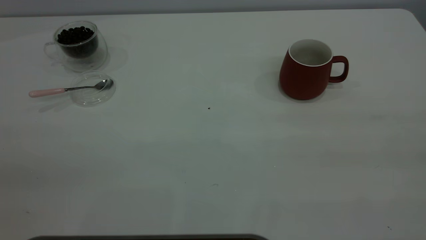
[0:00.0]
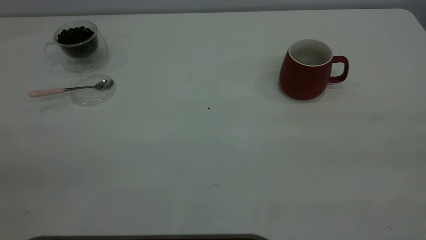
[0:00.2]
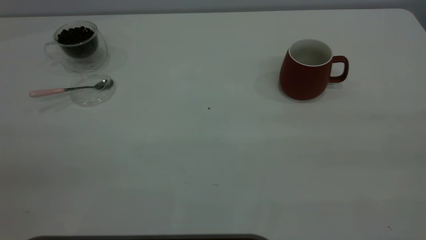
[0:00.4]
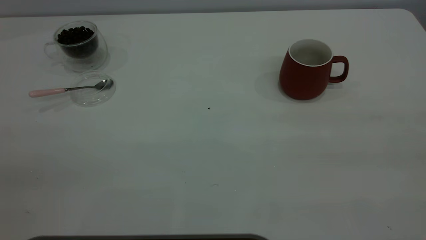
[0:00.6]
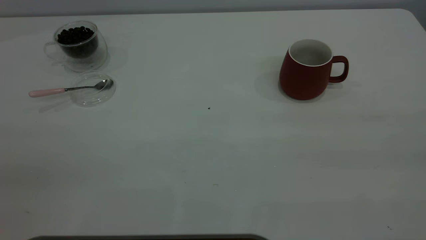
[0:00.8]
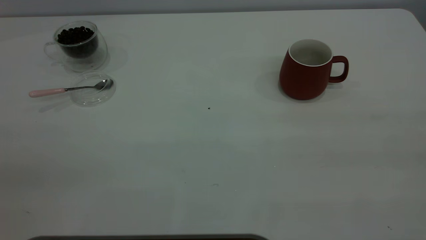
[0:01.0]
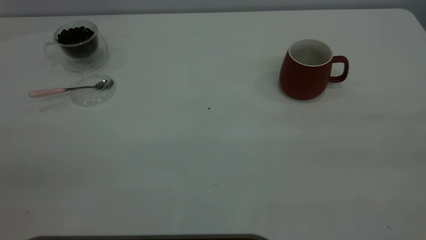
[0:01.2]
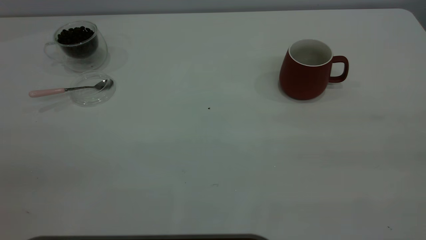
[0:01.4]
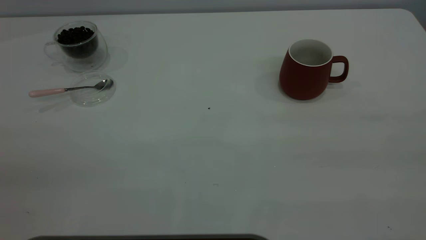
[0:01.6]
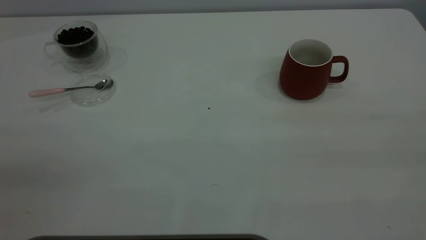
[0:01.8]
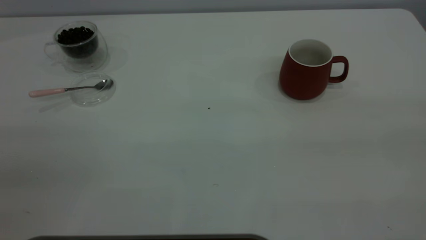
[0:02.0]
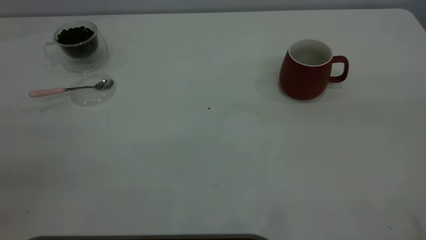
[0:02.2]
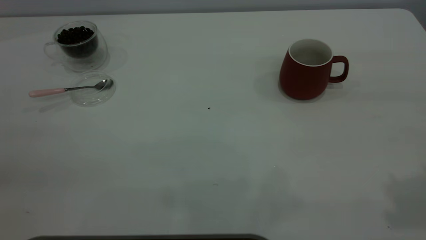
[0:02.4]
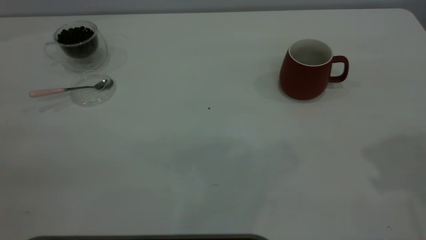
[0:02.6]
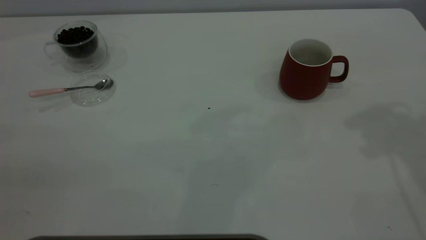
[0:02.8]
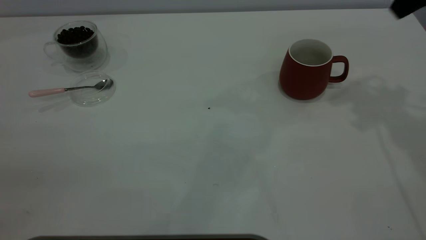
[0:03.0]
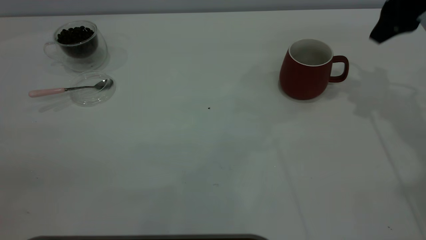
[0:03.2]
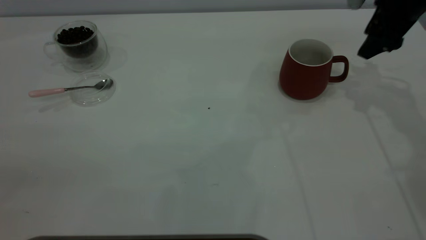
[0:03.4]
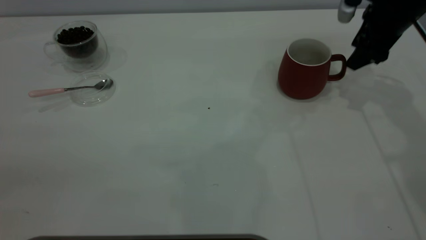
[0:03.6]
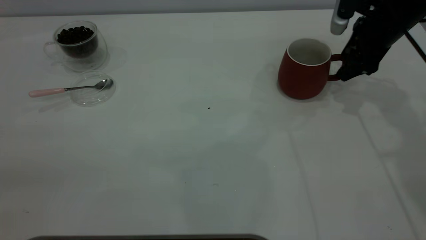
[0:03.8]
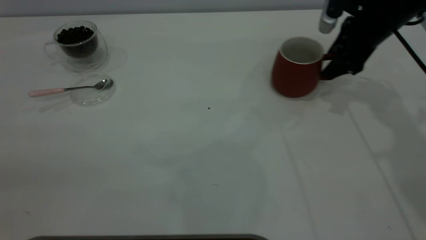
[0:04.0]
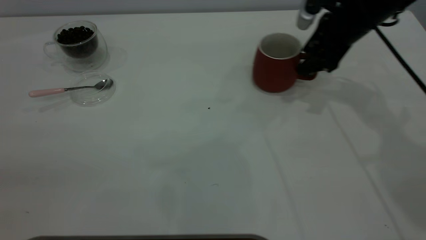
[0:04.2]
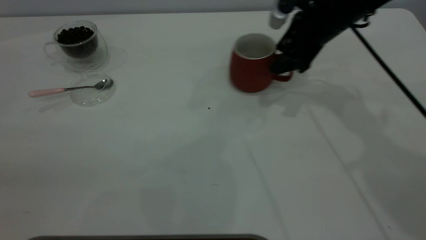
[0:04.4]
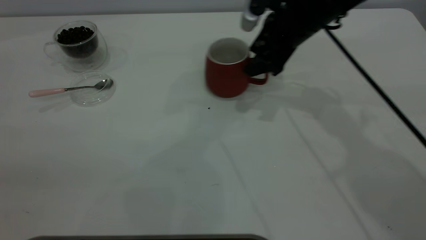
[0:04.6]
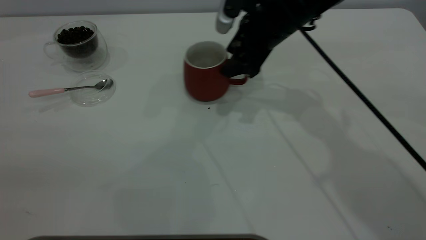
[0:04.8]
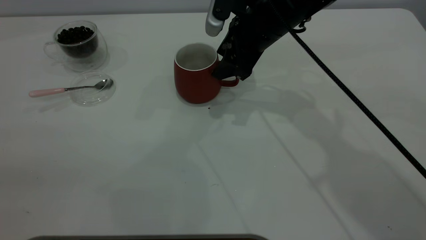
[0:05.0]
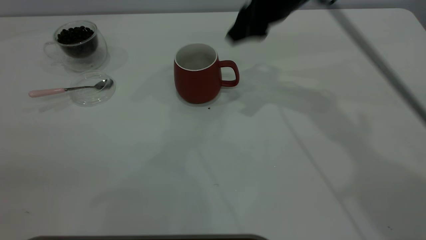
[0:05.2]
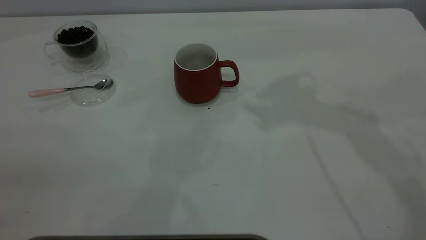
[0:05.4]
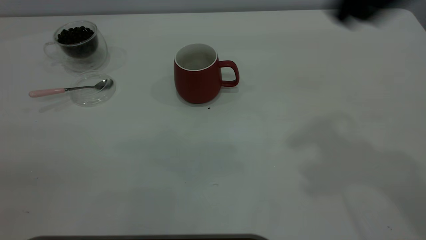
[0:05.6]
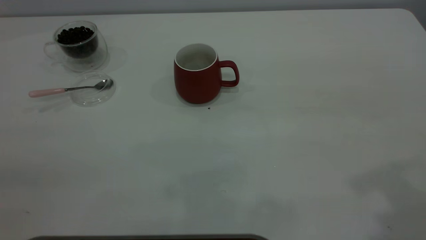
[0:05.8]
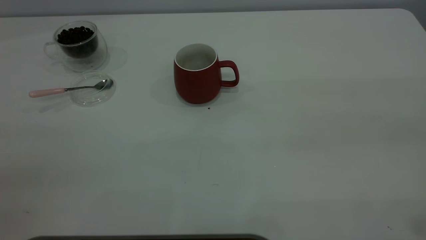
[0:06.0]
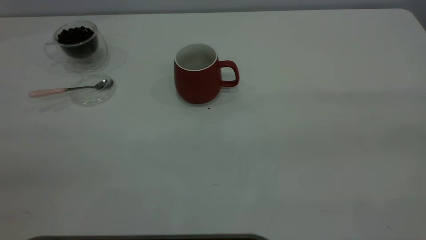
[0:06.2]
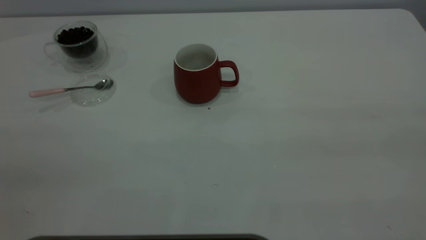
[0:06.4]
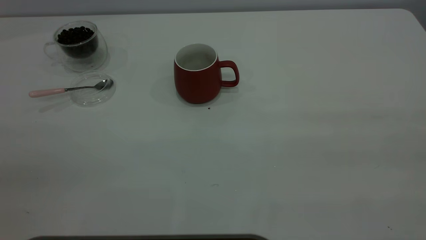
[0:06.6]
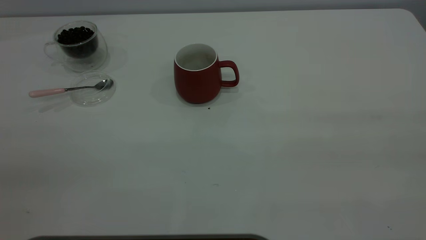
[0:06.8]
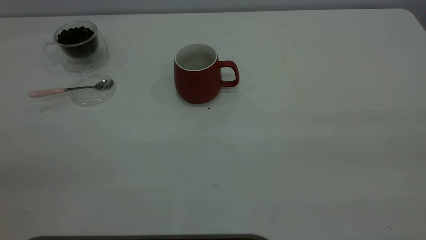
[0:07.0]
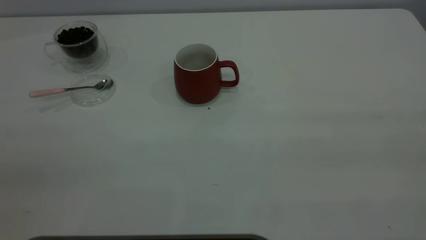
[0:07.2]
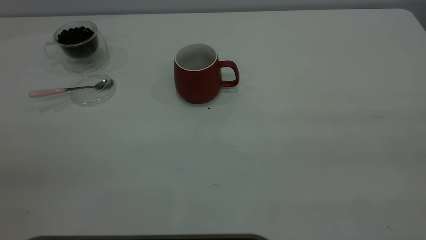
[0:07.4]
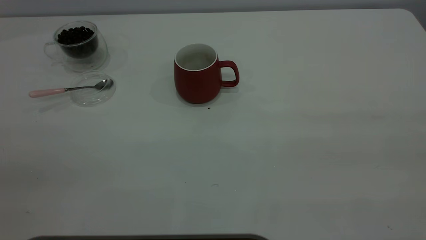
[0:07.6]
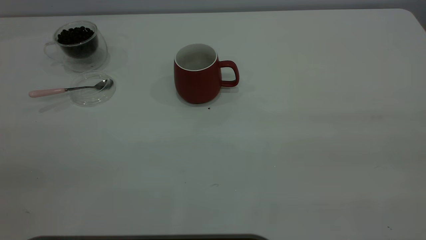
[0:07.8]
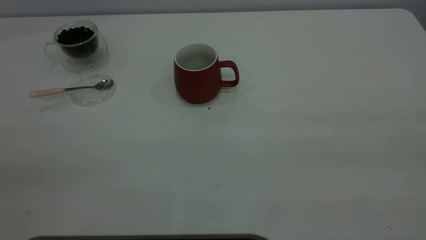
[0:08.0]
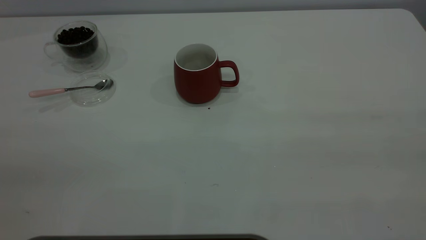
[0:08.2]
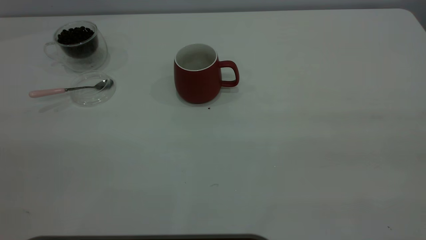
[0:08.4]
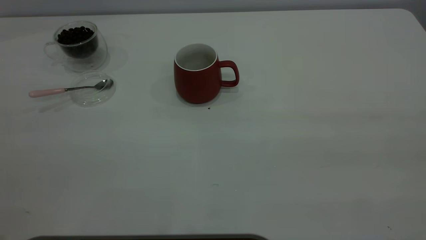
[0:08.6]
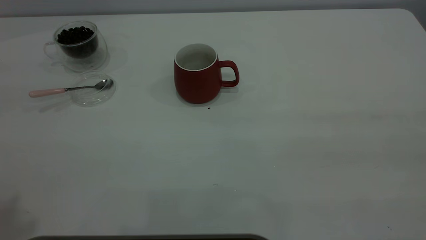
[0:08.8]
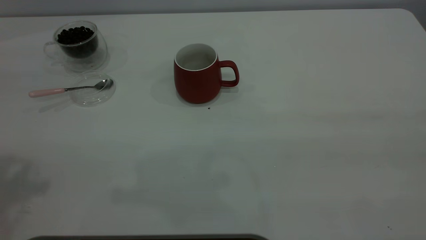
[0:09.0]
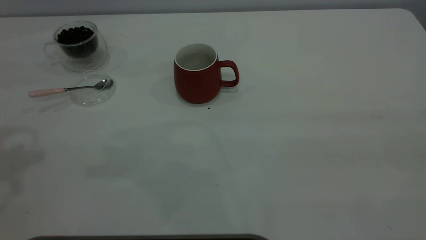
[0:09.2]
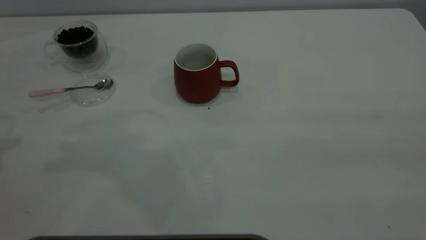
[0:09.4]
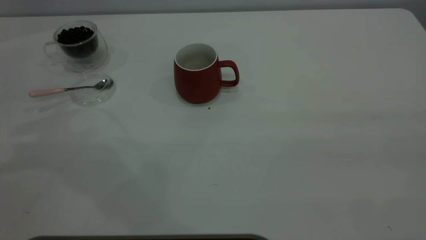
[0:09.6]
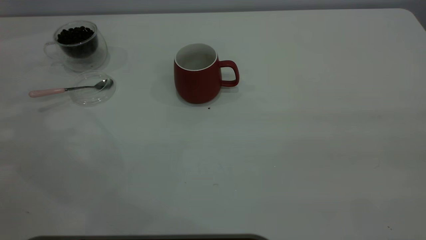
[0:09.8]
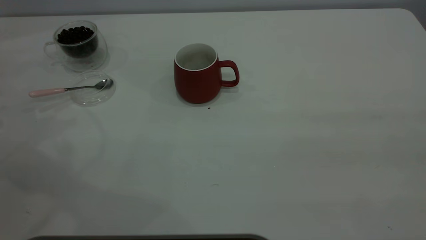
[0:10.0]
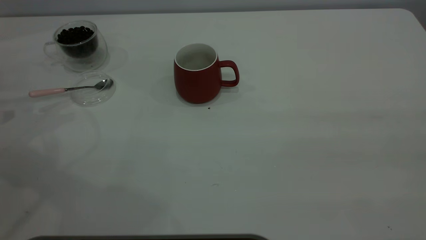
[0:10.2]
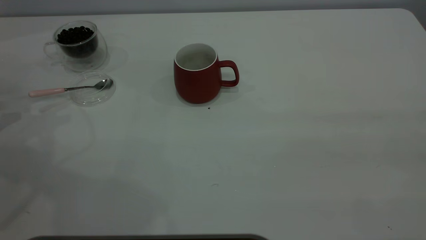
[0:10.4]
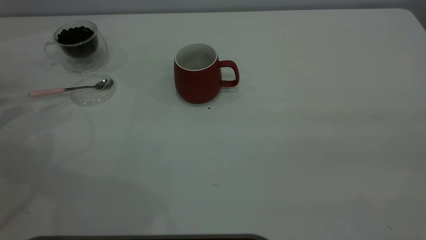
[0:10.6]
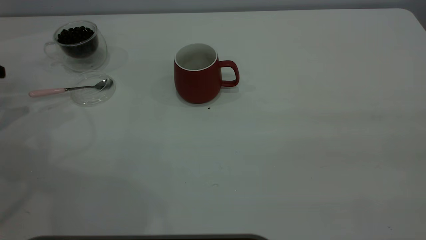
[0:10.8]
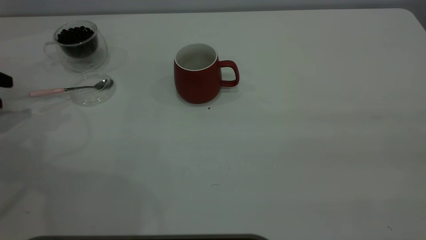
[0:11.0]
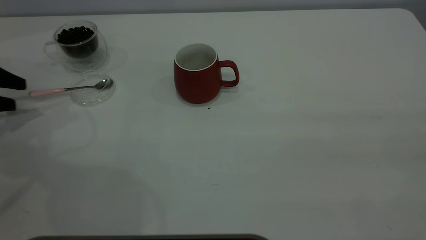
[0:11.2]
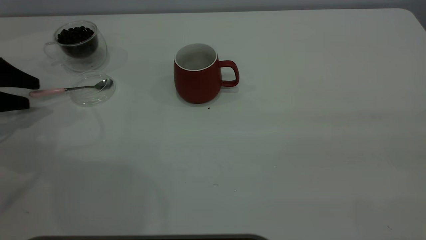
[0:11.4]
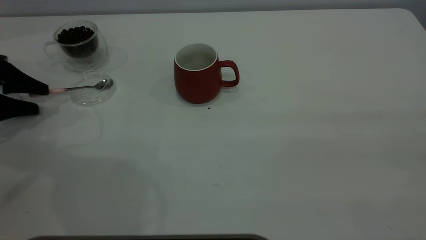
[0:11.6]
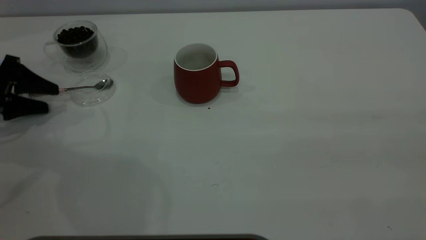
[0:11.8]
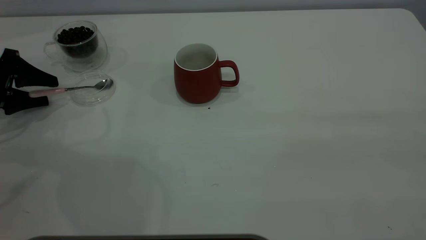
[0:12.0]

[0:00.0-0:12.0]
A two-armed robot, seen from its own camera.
Task of the whole recording: the right gripper place the red cup in the center of the table, the left gripper take the pink spoon from the cup lid and scoop out the coffee beans from the coffee cup and put them into the red cup, the left gripper put the spoon back into the cup lid.
Step, 0:00.0 to 0:05.0: Move the cup to the center of view.
0:00.0 to 0:01.6: The two grippers keep their place.
0:03.0 to 0:04.4: The right gripper travels downward, to the left and forward by approximately 20 cm.
0:04.4 to 0:06.0: The right gripper is displaced backward, upward and to the right by approximately 40 cm.
0:10.4 to 0:12.0: The left gripper shifts some 10 cm to the right and downward.

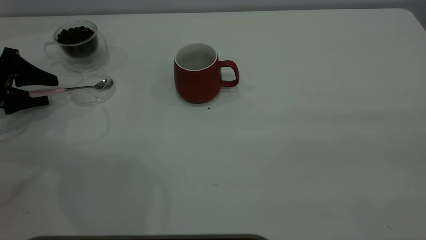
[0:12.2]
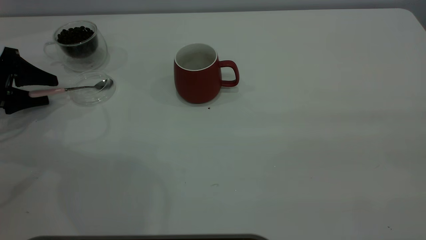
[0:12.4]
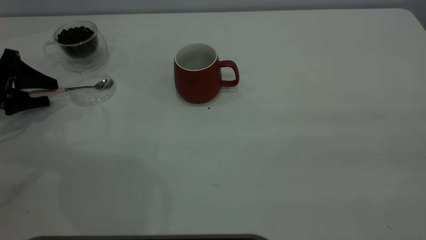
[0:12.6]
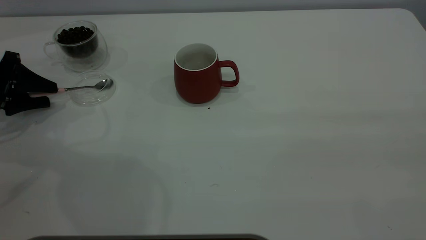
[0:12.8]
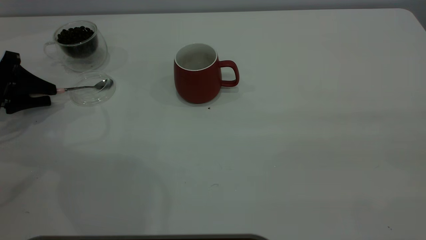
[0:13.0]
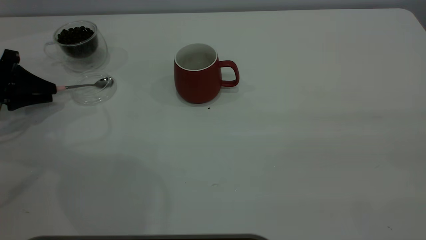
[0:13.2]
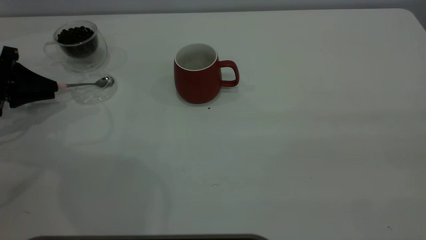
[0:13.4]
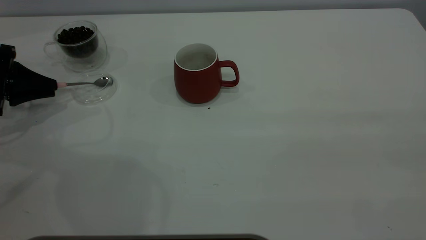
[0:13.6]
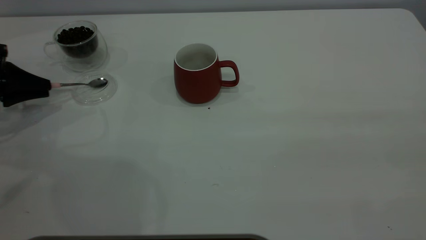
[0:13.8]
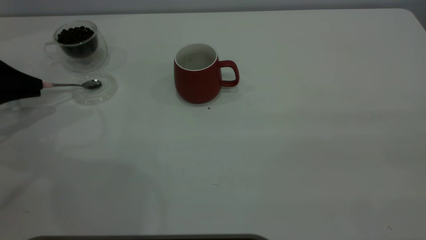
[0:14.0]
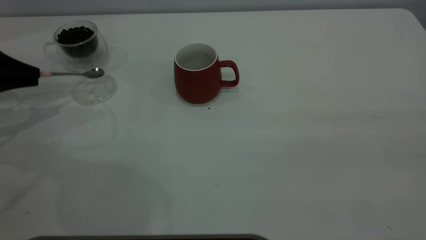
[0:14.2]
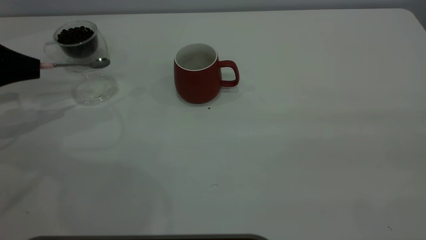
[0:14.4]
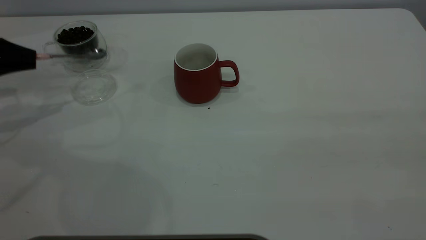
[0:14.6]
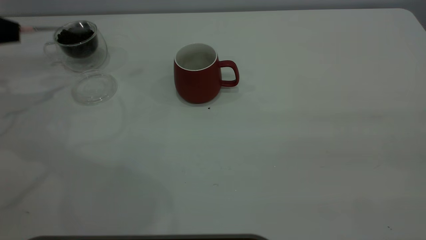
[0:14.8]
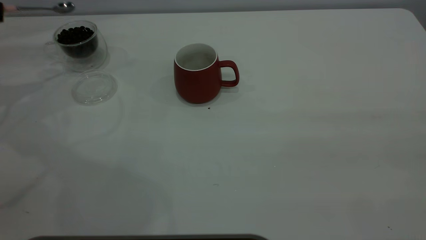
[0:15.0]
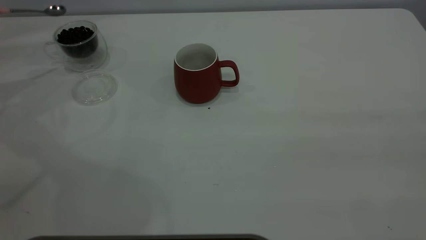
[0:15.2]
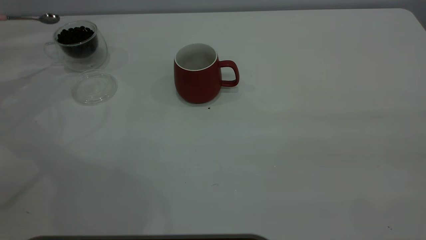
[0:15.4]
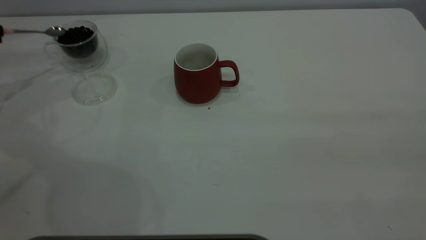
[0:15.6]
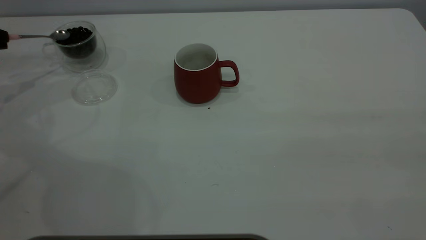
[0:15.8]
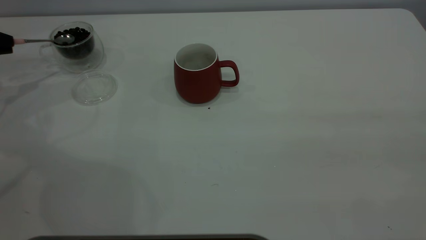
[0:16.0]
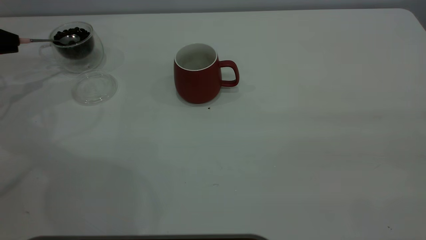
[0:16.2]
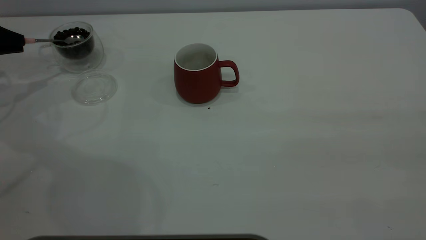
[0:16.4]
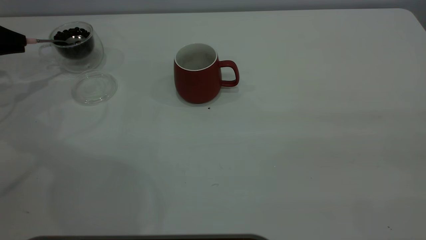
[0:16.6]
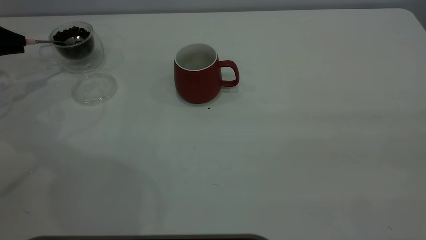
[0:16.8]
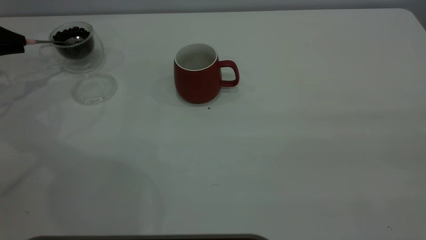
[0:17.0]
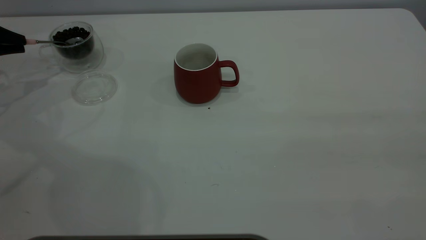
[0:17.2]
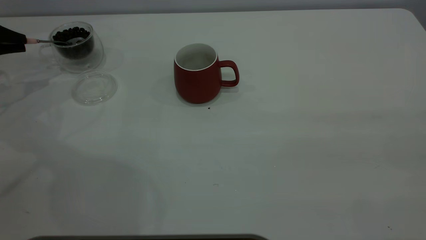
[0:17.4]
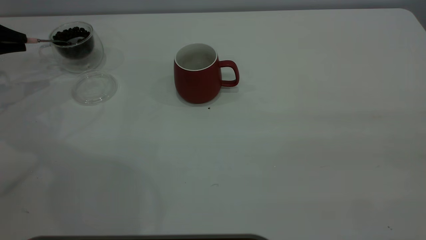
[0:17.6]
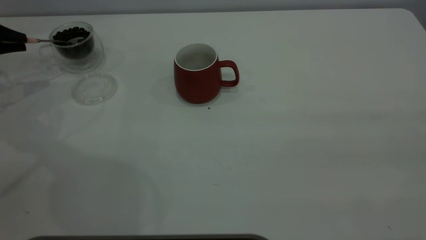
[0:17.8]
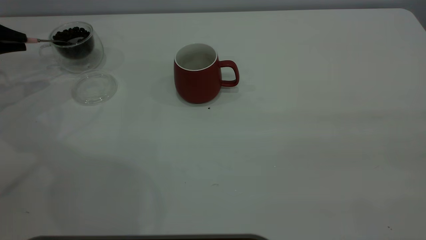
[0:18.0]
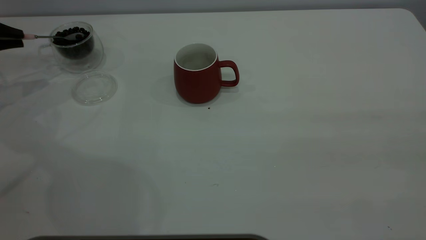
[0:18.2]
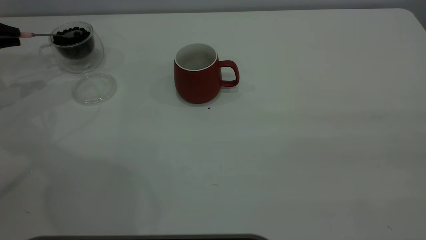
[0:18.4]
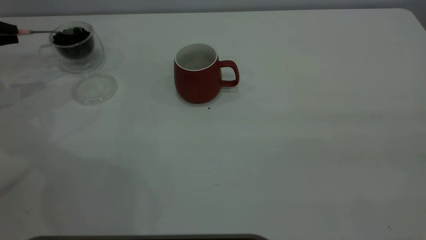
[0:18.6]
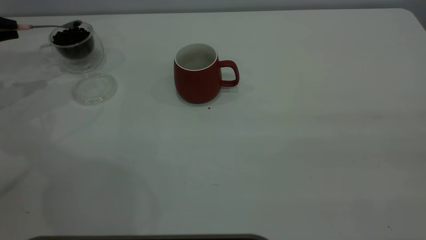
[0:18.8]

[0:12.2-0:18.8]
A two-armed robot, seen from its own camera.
Task of the whole recording: the right gripper place the red cup in the center of the table, the left gripper take the pink spoon from the cup lid and scoop out the coffee beans from the coffee cup and put them into the red cup, the left gripper put the spoon back into the cup lid.
Step, 0:12.2 to 0:14.4: Pick up the spoon.
0:12.2 to 0:13.8: The left gripper closes its fingers.
0:13.8 to 0:15.4: The left gripper moves upward, to the left and forward, about 10 cm.
0:15.4 to 0:17.2: There are only small adjustments of the grippers.
0:17.2 to 0:18.8: The grippers make only small movements.
